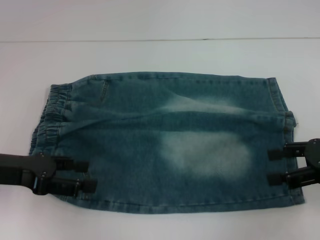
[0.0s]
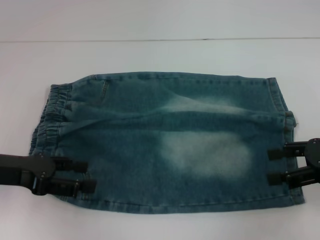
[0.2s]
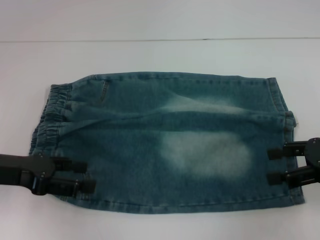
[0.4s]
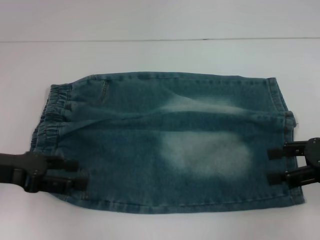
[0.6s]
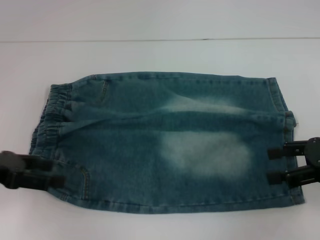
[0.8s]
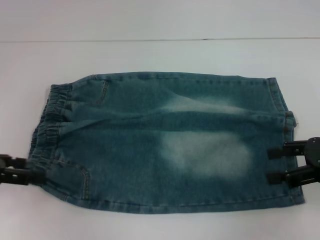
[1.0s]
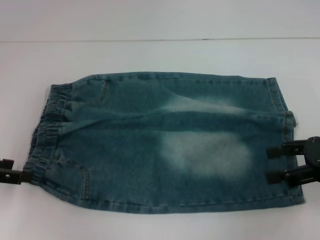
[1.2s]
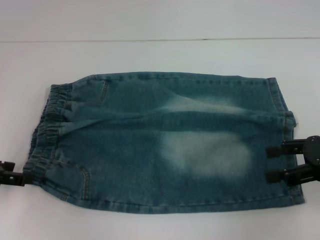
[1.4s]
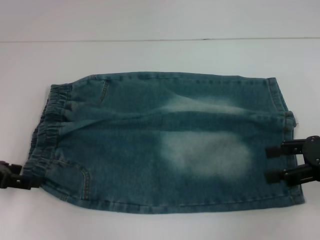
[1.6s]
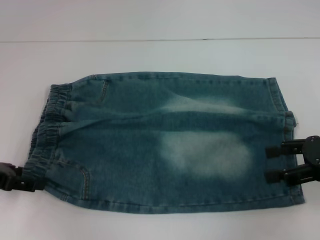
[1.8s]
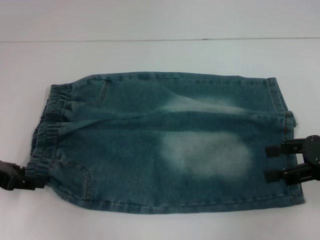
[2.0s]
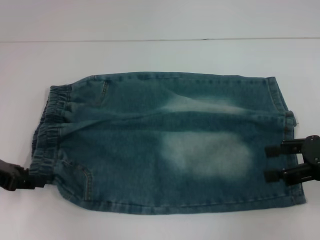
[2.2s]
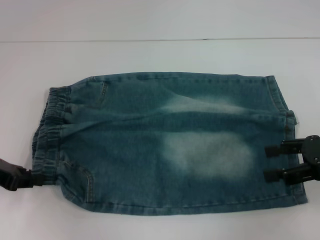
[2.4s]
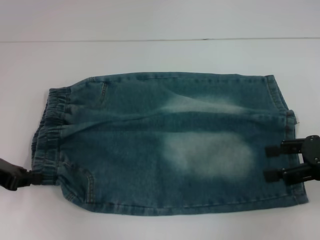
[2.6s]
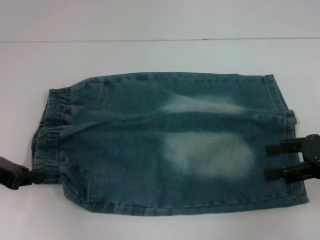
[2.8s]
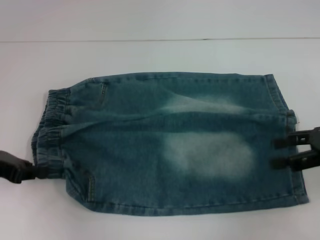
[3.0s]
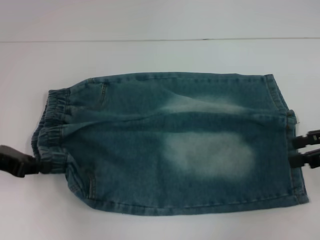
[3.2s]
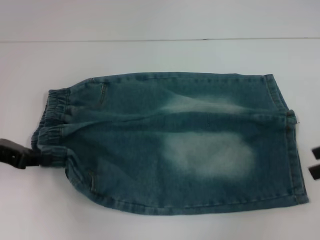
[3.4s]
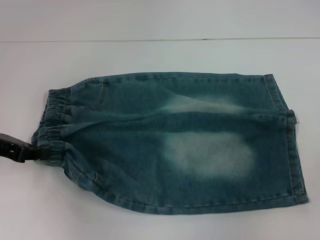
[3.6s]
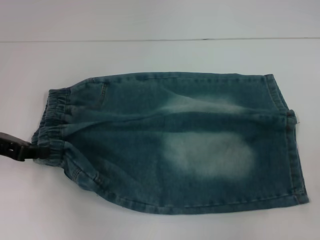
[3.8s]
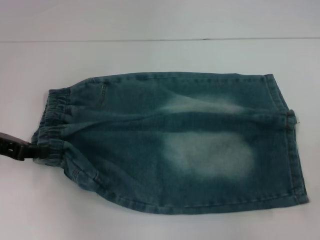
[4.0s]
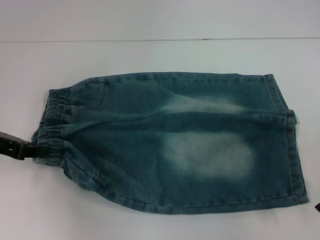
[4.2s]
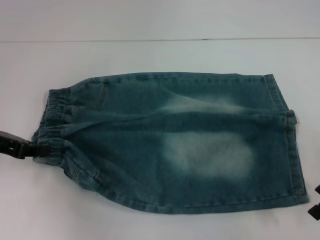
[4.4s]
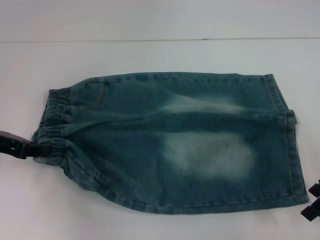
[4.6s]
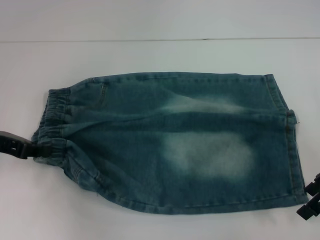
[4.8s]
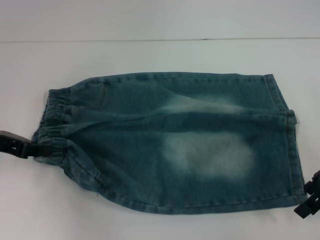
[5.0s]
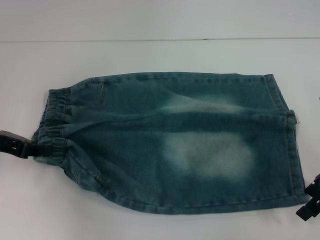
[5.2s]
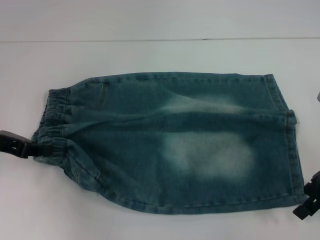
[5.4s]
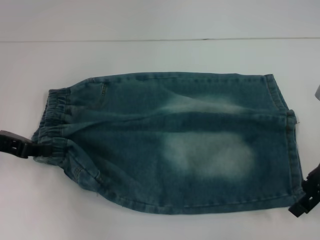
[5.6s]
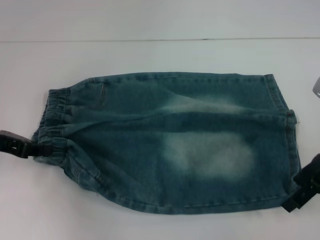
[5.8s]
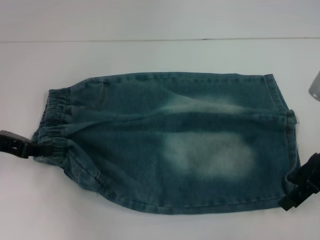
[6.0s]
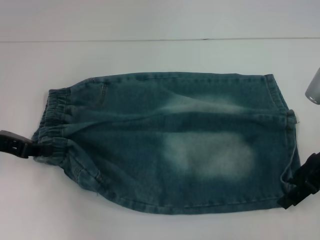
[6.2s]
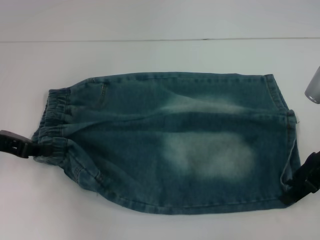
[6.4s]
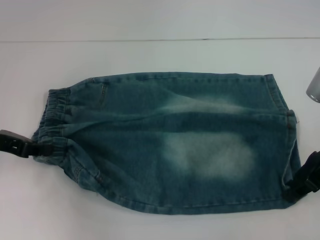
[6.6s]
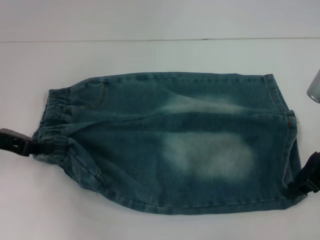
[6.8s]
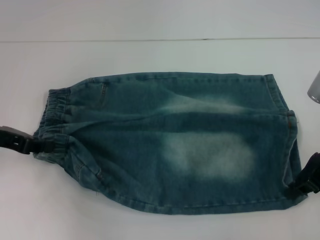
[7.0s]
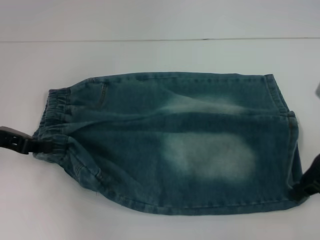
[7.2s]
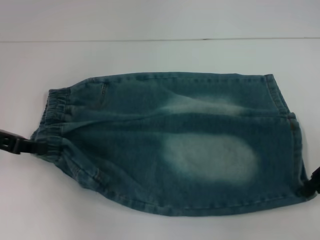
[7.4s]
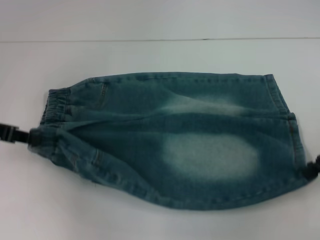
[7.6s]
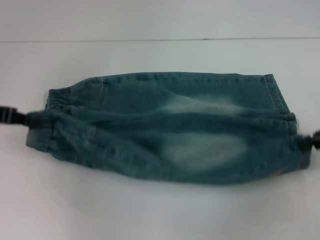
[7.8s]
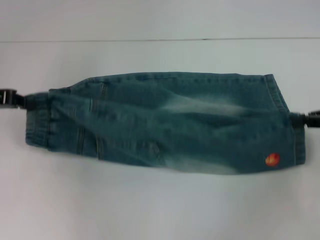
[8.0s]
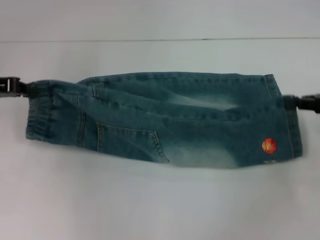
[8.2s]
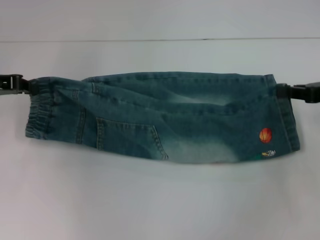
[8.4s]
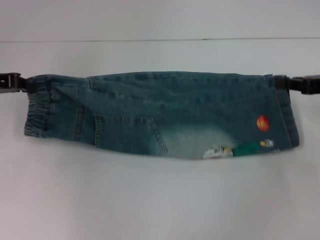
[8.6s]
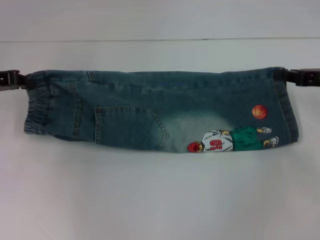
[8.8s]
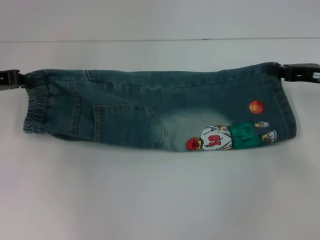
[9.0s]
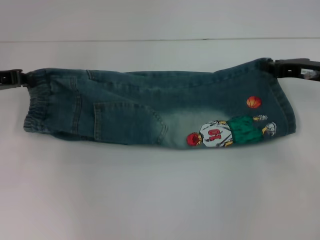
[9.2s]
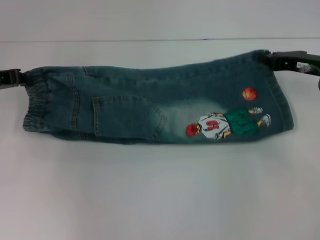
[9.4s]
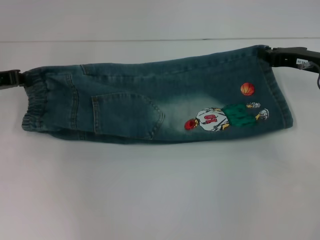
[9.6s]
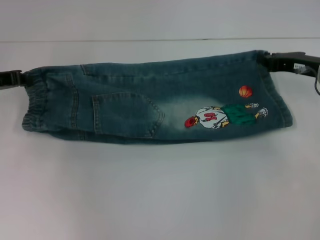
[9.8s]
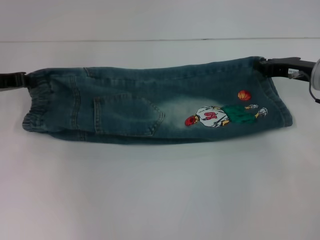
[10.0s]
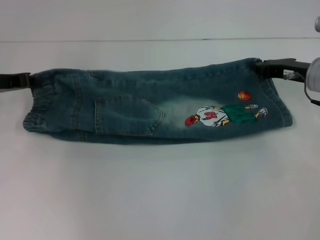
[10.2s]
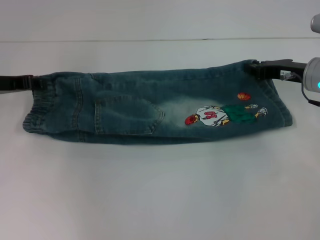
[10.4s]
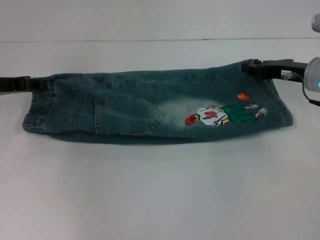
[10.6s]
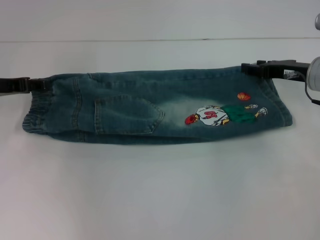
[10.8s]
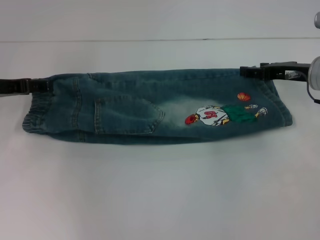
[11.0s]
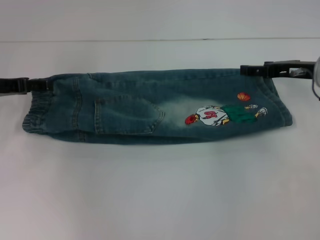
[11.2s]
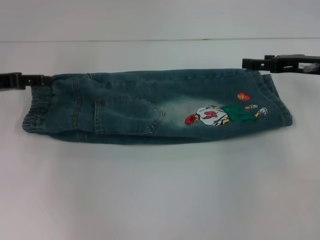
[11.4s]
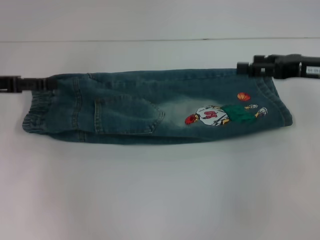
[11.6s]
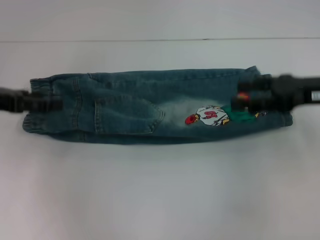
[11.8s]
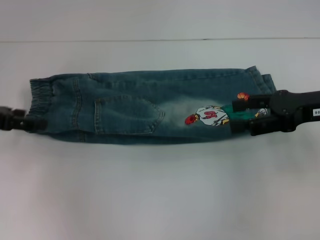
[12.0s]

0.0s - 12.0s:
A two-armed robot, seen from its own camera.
Step, 0.0s - 2.6s: Hold the lower left waistband with your left hand.
Step, 3.0s - 7.0s: Grab the lower right pant leg with your right hand.
Step, 7.2s - 11.4s: Fold upward with your right hand.
0.0s - 1.6s: The left gripper moves to the left, some 5 cm.
1.6s - 3.0s: The left gripper closes.
4.4s - 6.0s: There are only small adjustments of the grippers.
6.0s - 7.6s: The right gripper travels to the right by roughly 5 cm, and closes.
7.6s - 9.0s: Both grippers travel together forward, about 5 cm.
9.0s - 10.4s: The right gripper changes place by roughly 5 cm.
10.4s - 12.0s: The right gripper goes some 10 cm backward and upward, and opens up. Meanwhile the left gripper shifts roughly 5 cm backward, and opens.

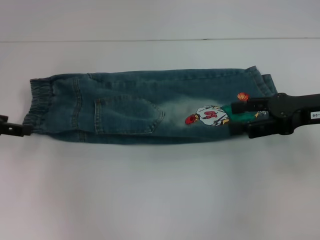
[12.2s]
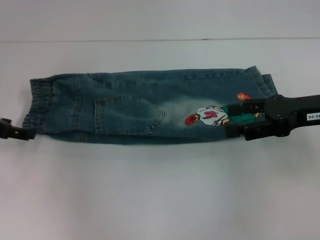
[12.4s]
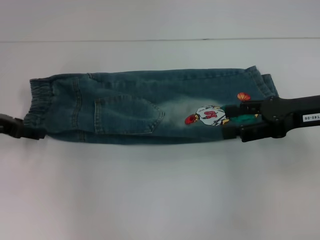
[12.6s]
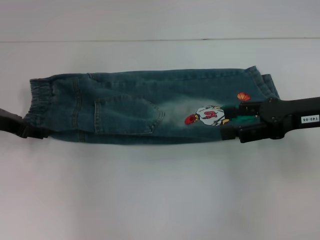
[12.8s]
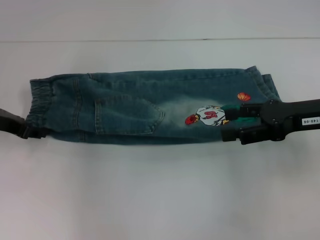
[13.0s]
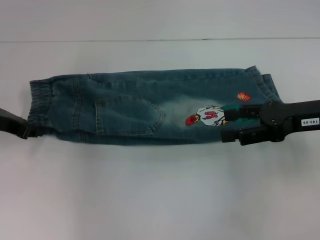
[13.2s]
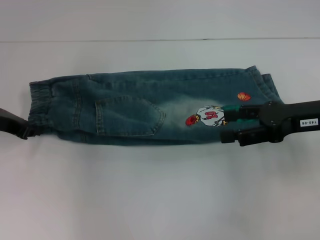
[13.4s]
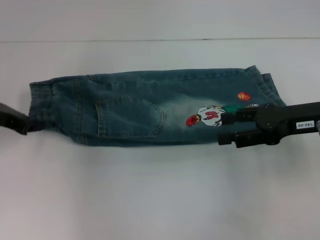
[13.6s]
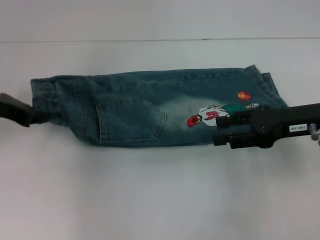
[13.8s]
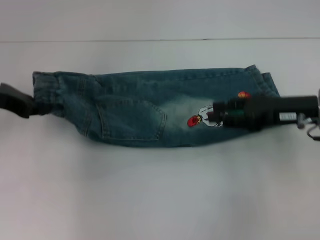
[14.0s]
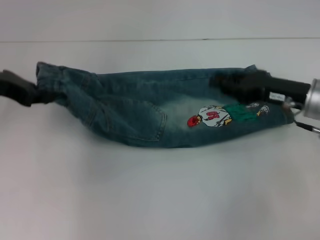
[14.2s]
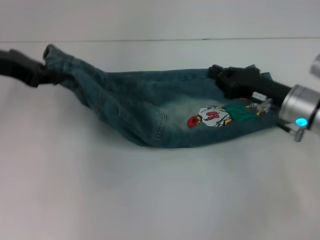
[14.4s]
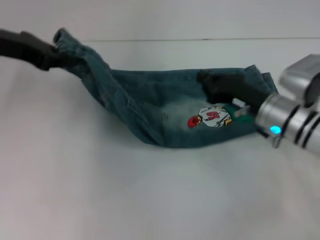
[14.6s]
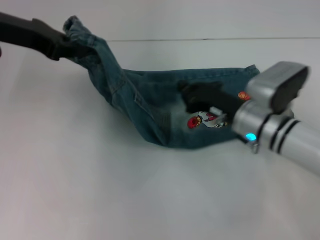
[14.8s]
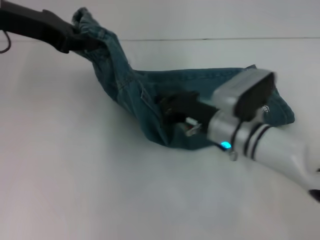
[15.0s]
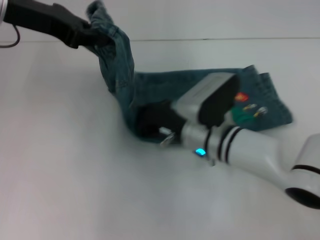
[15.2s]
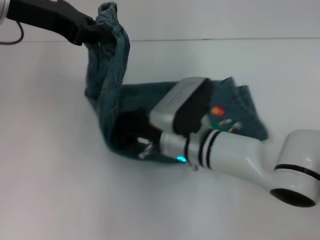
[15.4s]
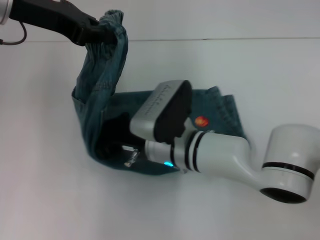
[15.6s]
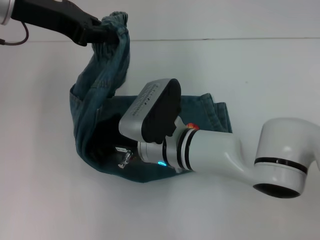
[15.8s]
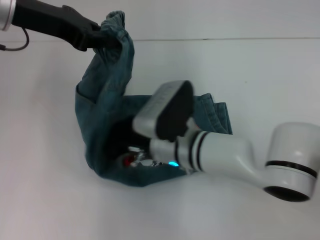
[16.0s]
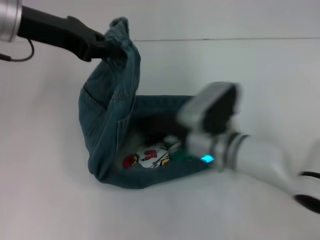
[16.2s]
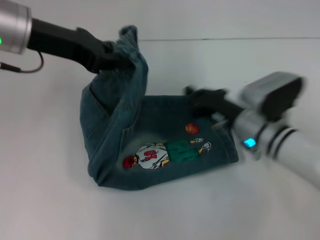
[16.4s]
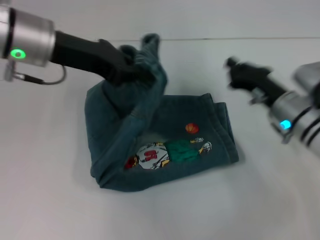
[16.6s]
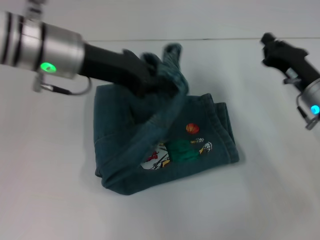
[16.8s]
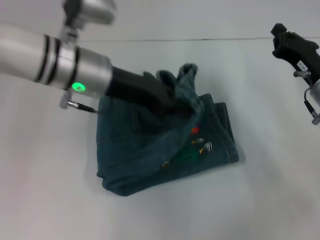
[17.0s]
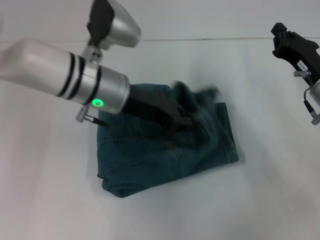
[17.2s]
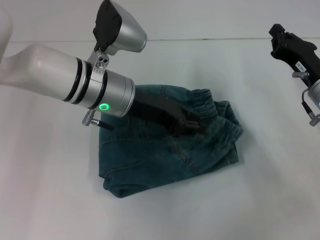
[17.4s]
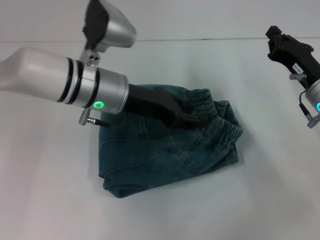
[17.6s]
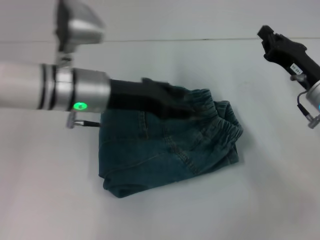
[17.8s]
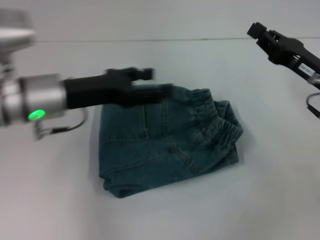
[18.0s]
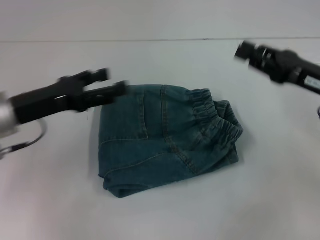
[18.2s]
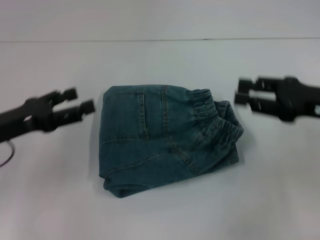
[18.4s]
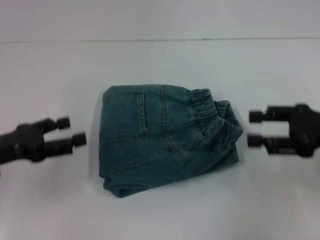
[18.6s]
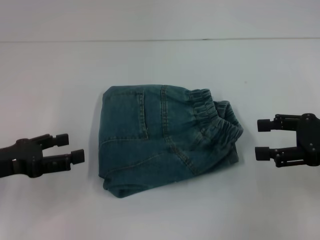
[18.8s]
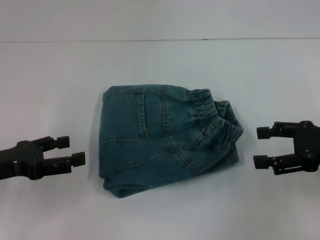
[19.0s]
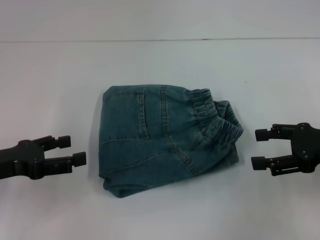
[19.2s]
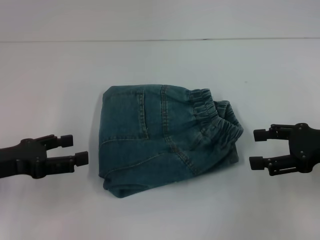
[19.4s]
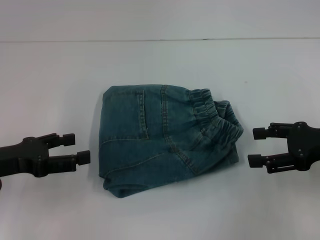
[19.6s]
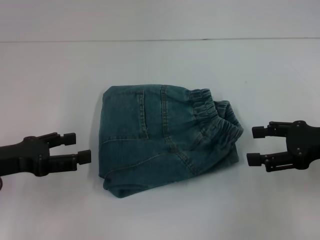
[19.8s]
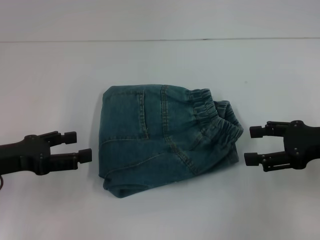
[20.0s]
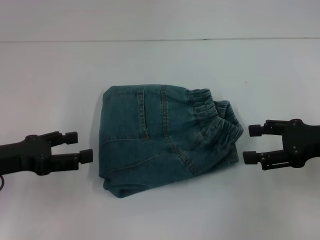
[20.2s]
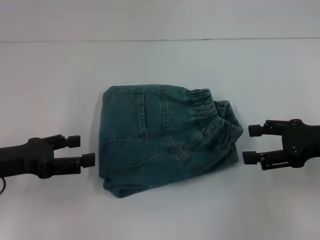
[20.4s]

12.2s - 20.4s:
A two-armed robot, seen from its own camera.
Step, 12.2s - 13.8s: Hold the waistband with your left hand.
Step, 14.0s - 16.0s: Press the middle of the pants with your right hand.
Step, 16.2s - 17.6s: Fold to the right with your left hand.
12.2s - 13.8s: The left gripper moves about 5 cm, and closes.
13.8s - 15.4s: The left gripper heads upward and to the right, covering some 15 cm. The right gripper goes approximately 20 cm to the left, and closes its fingers.
15.4s - 17.2s: The right gripper heads to the right, covering about 20 cm; the left gripper heads to the right and downward, covering about 15 cm.
17.2s - 18.8s: The left gripper is displaced to the left and backward by roughly 25 cm, and opens up. The right gripper travels backward, upward and to the right by roughly 10 cm, and opens its fingers.
18.8s - 20.4s: There are only small adjustments of the grippers.

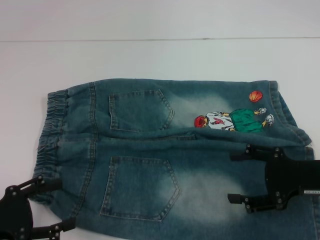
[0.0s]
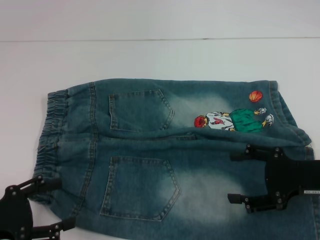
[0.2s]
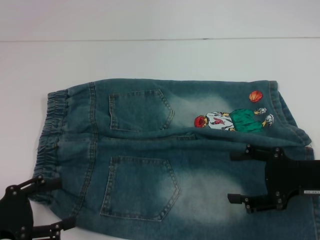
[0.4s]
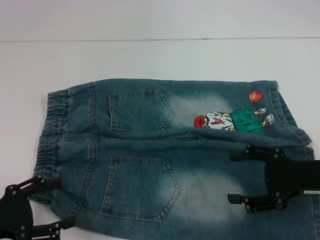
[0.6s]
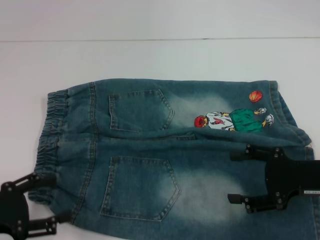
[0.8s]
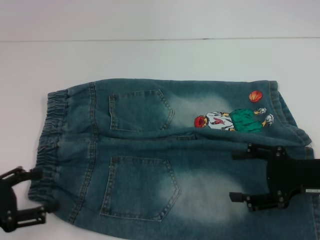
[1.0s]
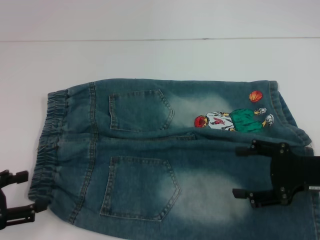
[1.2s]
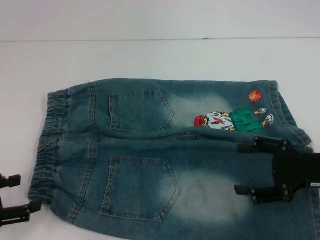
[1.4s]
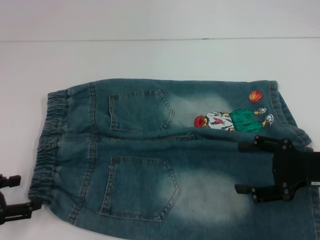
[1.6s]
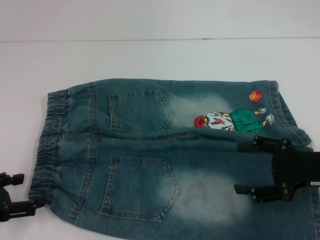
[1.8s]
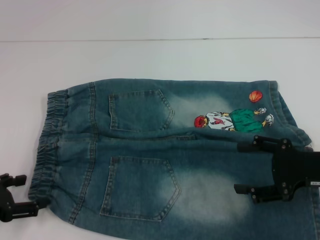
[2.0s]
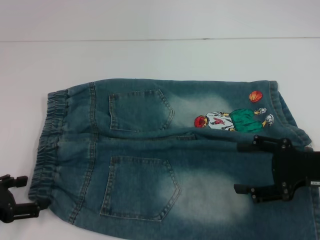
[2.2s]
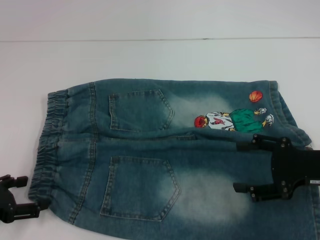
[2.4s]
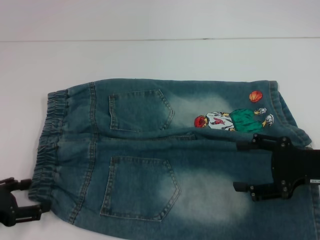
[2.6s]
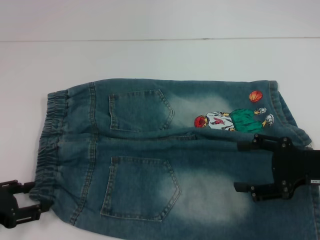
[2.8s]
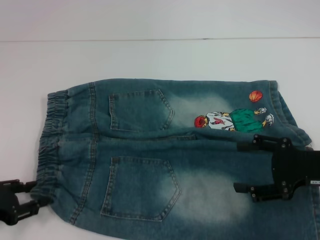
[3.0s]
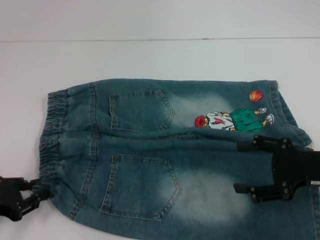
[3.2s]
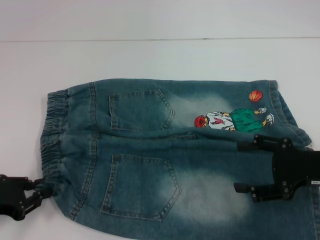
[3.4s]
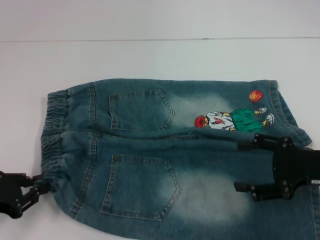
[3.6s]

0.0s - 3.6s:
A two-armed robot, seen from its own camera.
1.8s - 3.6s: The left gripper closes up.
